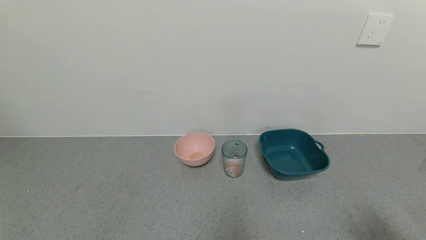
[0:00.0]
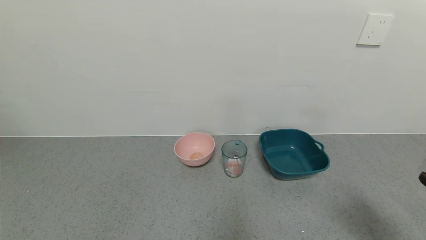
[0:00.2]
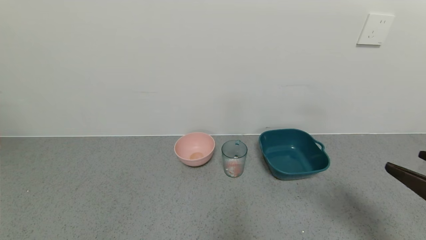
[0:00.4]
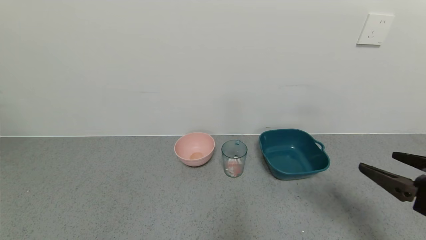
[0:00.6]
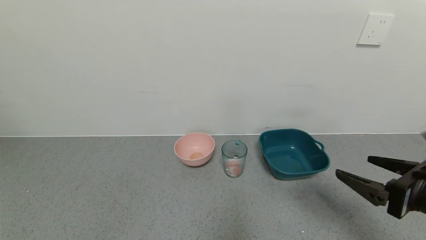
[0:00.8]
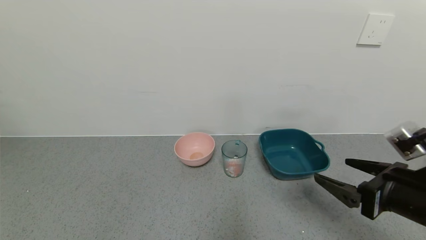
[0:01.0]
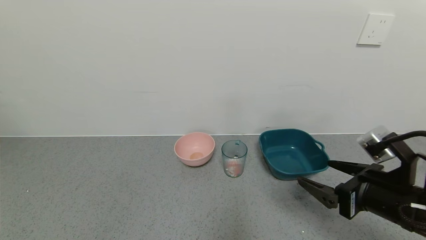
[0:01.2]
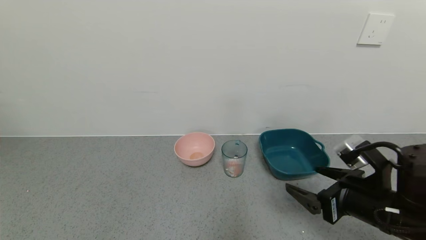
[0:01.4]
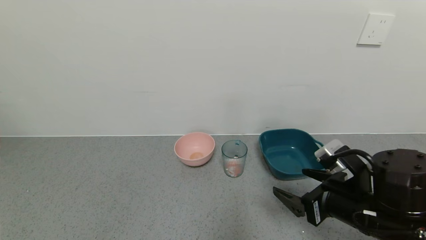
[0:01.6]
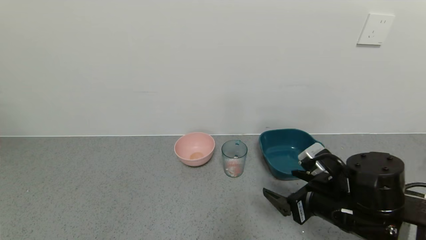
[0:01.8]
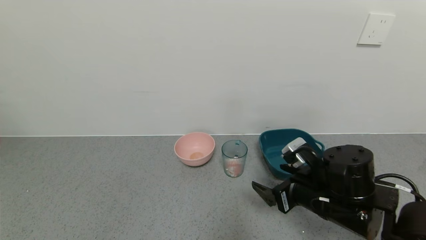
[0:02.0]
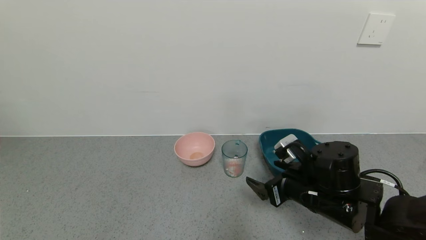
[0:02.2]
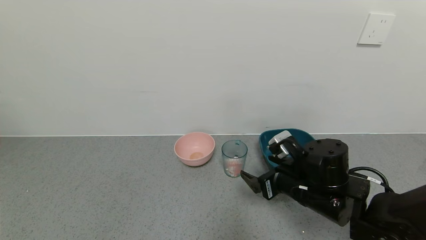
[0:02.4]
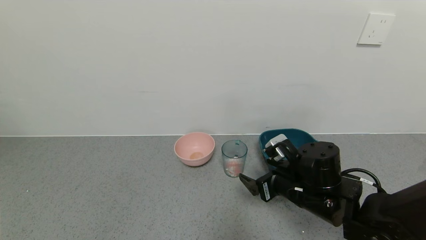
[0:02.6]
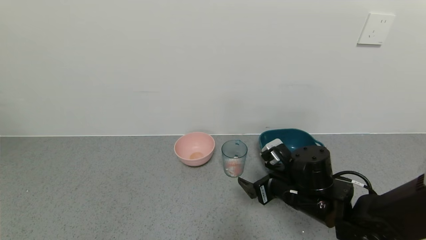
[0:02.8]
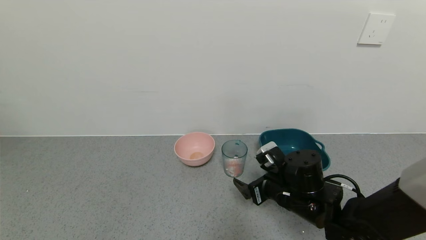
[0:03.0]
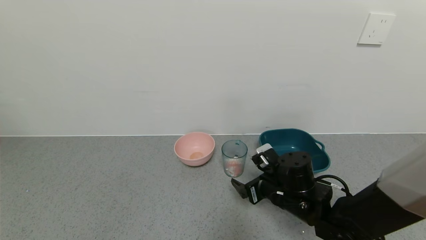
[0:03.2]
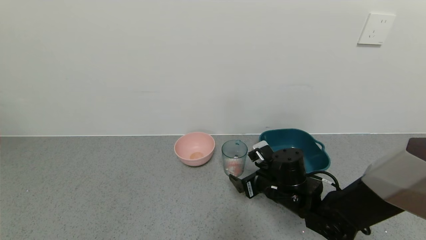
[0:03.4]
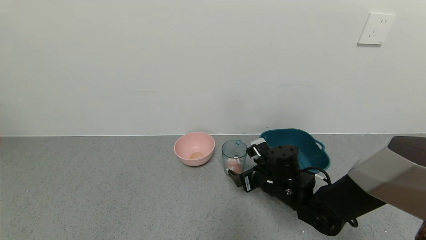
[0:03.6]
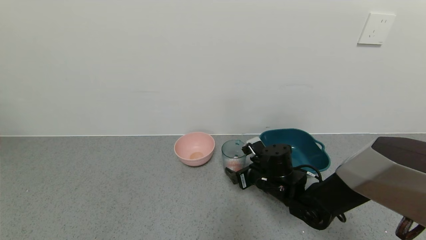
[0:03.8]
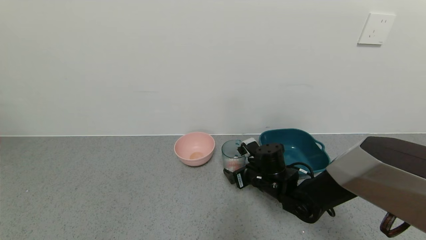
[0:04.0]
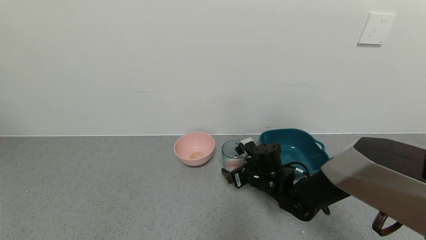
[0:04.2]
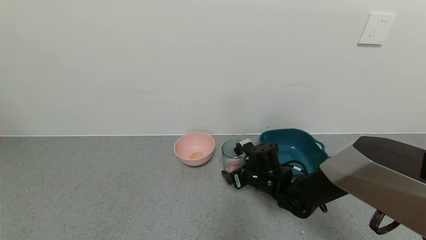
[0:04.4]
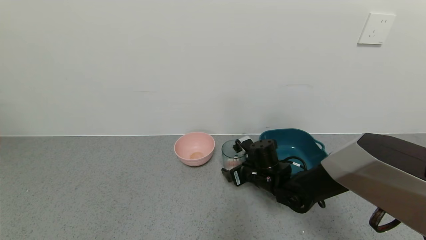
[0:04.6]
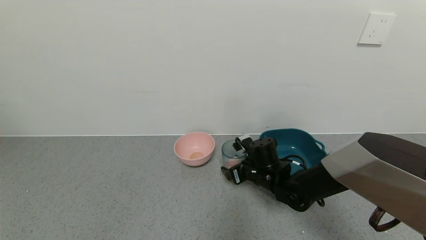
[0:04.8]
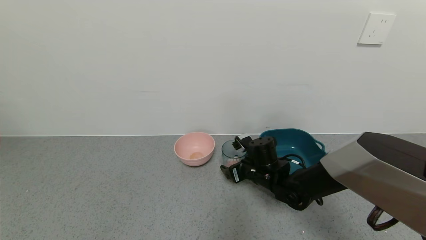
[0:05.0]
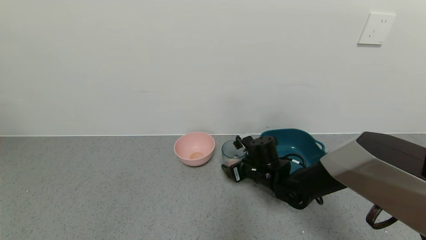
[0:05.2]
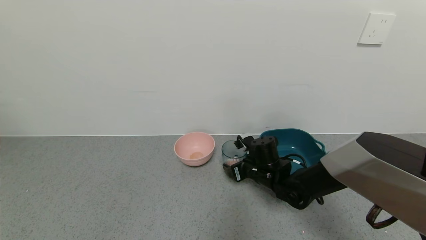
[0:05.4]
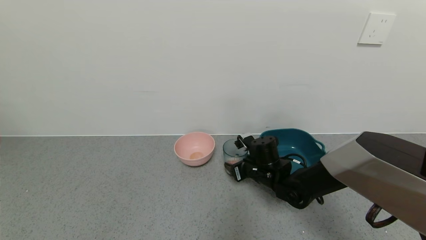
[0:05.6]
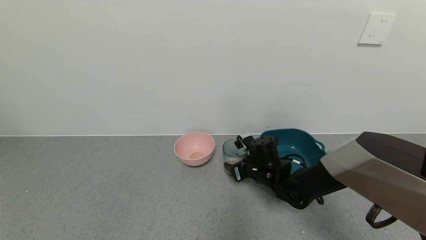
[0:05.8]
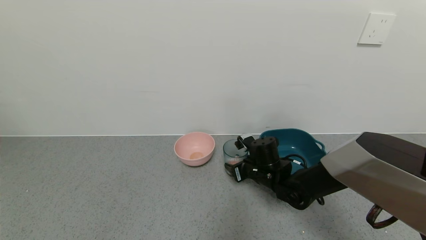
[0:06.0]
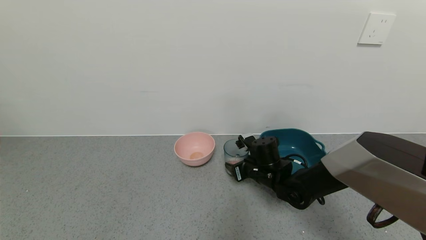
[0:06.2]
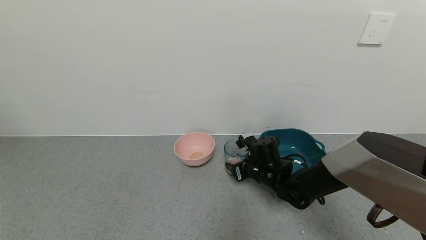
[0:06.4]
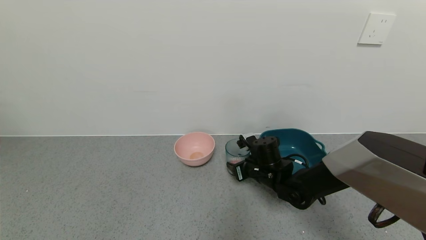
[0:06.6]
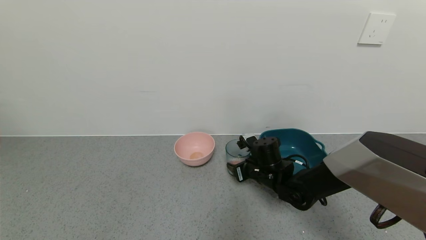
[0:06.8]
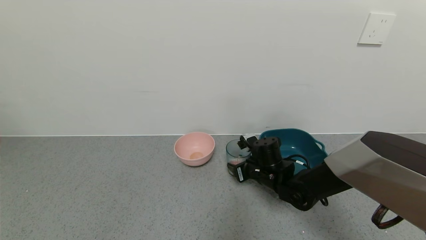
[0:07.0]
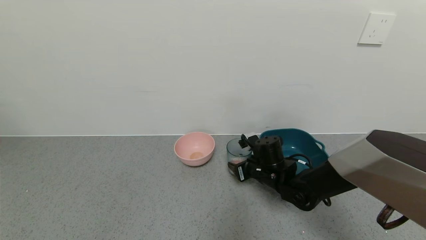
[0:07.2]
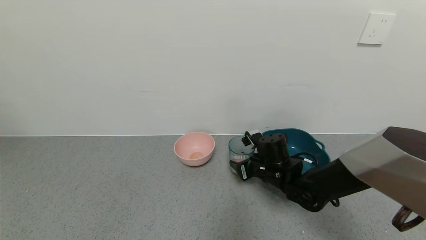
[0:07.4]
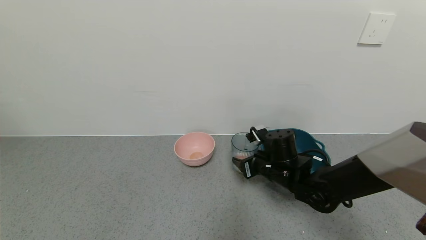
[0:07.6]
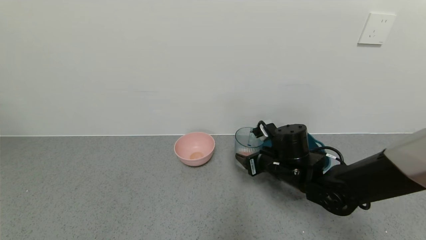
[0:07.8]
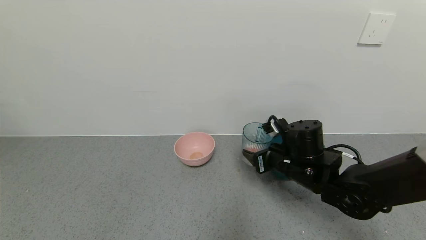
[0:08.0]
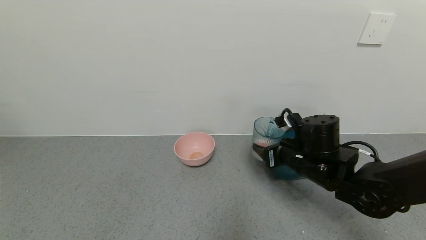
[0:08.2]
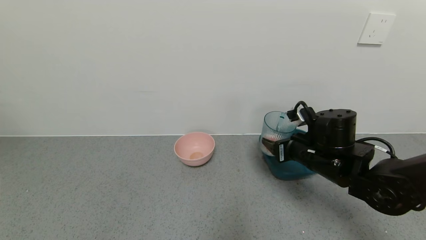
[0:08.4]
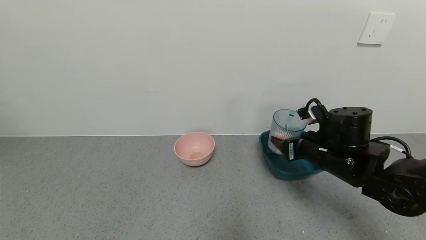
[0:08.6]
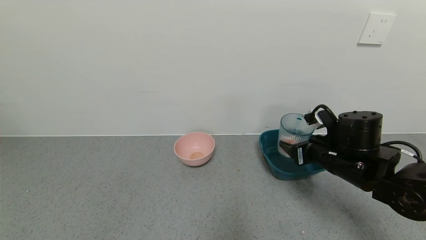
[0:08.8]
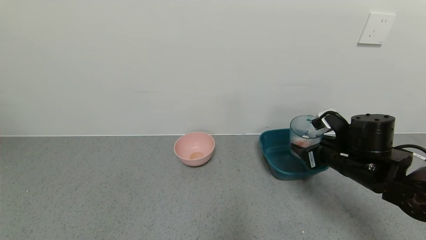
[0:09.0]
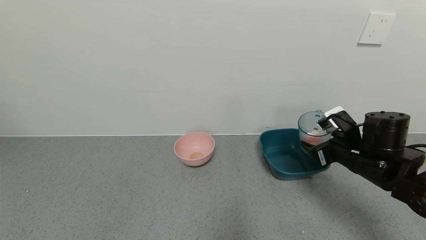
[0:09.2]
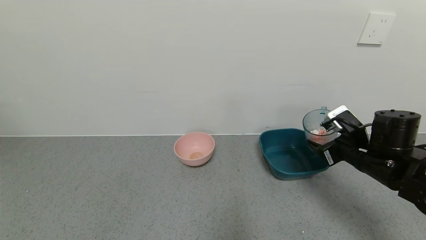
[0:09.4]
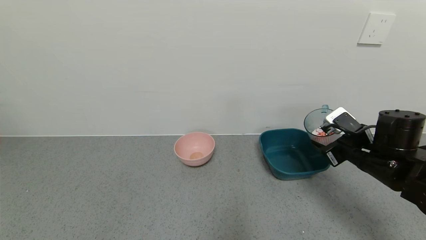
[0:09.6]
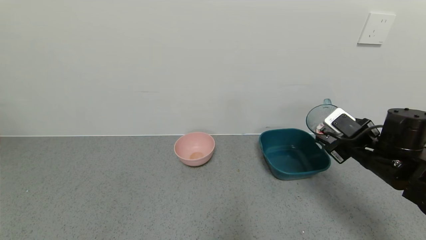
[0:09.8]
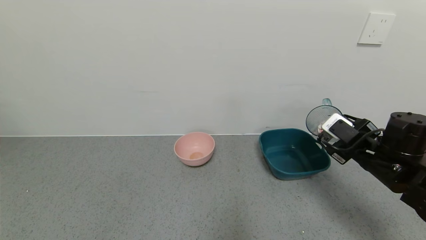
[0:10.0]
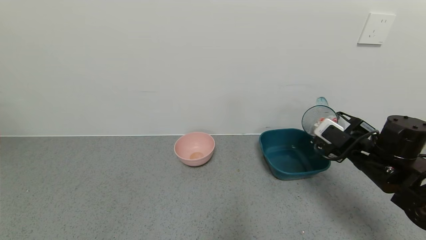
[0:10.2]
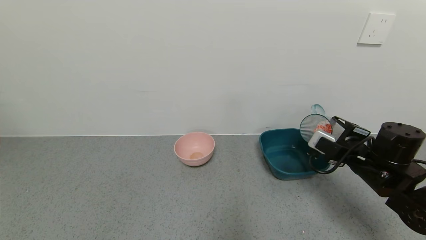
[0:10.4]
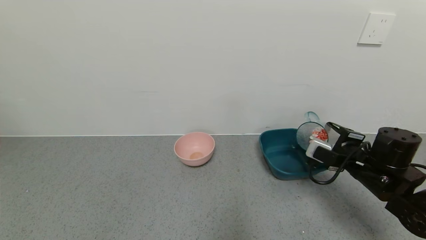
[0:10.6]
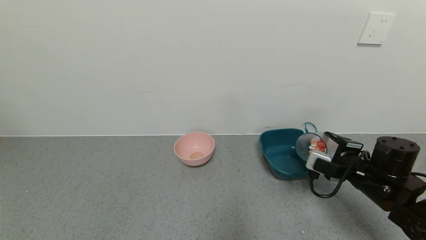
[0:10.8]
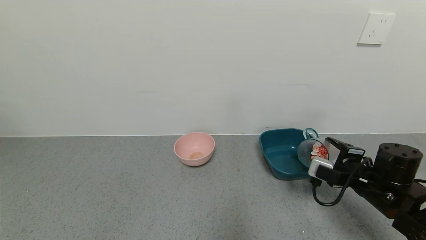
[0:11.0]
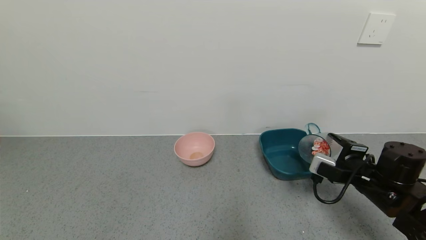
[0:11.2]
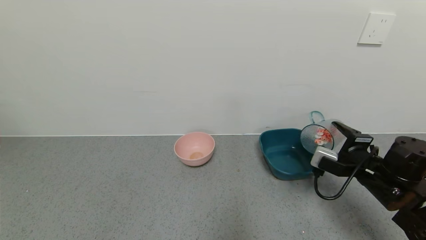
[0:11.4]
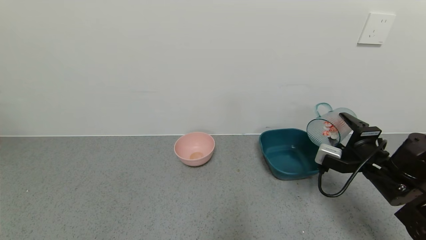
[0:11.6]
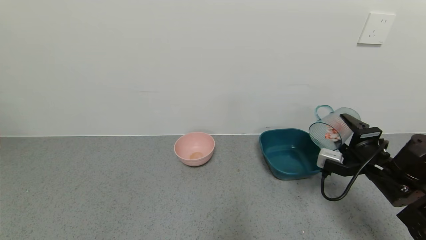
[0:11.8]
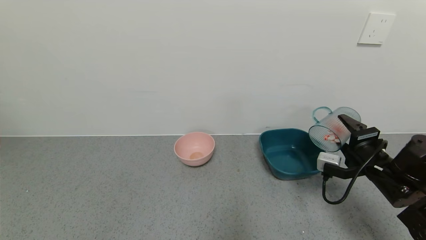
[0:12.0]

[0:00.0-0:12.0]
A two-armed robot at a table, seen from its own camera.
Task of the whole recording: use a gripper to pick up the cup and pour the solid into a bowl or tray.
Step, 0:00.0 to 0:05.8: Grasp the glass of shrimp with the right gripper.
0:00.0 to 0:01.6: The right gripper is displaced forward, to the left and downward by approximately 20 cm.
0:01.6 to 0:03.0: The right gripper travels forward, to the left and downward by about 15 cm.
0:03.0 to 0:04.4: The right gripper goes about 10 cm forward.
0:04.4 to 0:06.0: The right gripper closes up.
0:06.0 to 0:07.6: The right gripper changes place by about 5 cm.
0:07.6 to 0:09.0: The right gripper moves to the right and upward, approximately 15 cm.

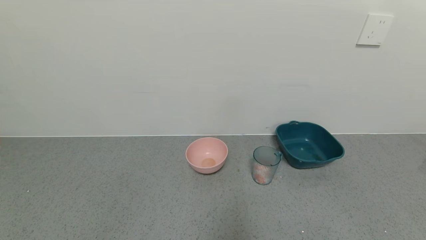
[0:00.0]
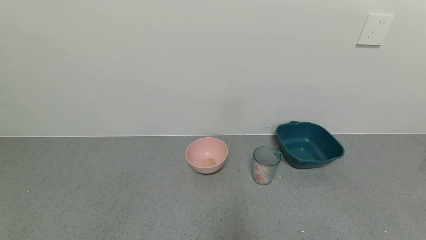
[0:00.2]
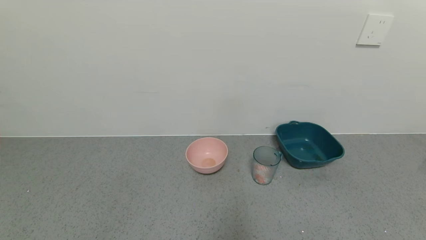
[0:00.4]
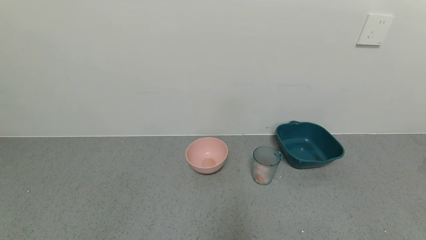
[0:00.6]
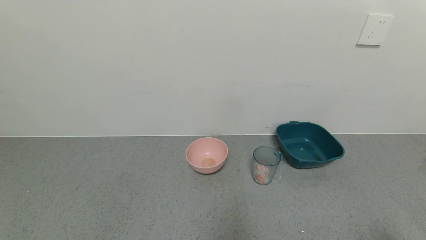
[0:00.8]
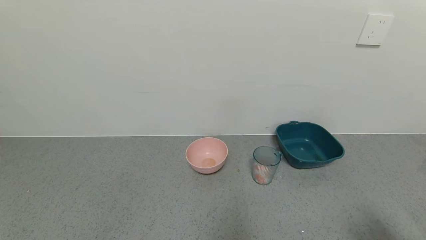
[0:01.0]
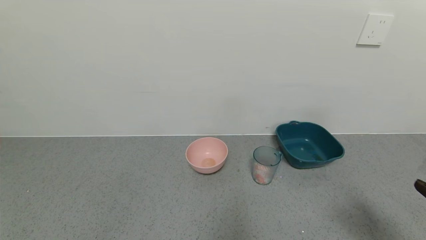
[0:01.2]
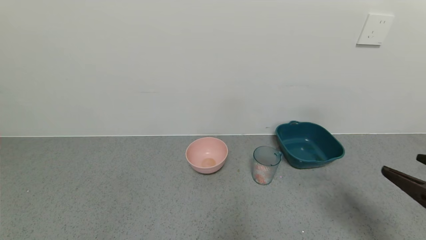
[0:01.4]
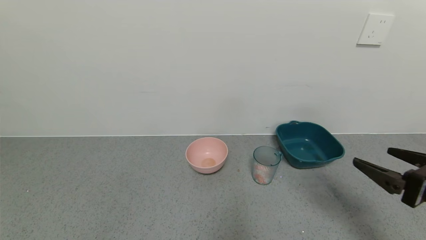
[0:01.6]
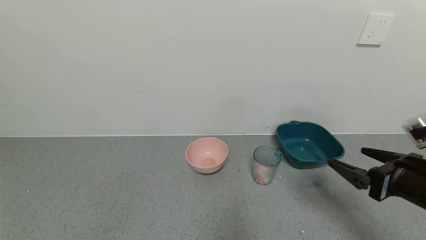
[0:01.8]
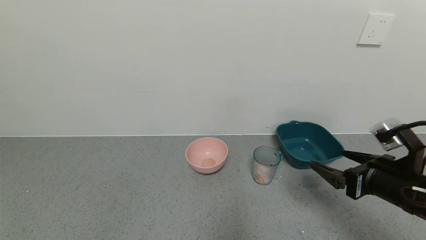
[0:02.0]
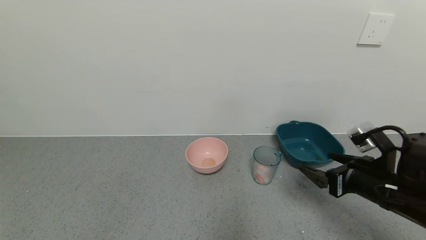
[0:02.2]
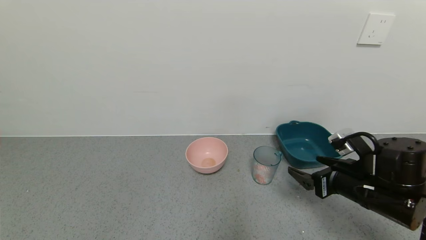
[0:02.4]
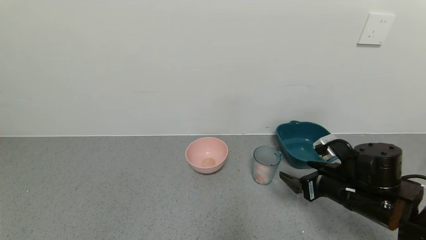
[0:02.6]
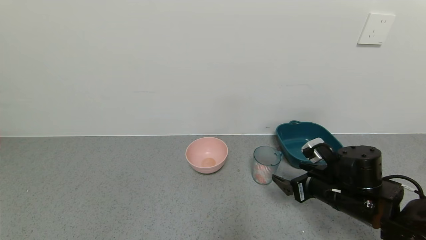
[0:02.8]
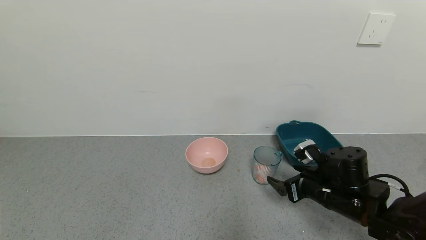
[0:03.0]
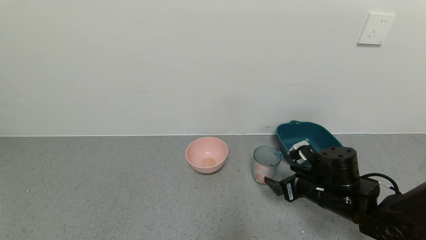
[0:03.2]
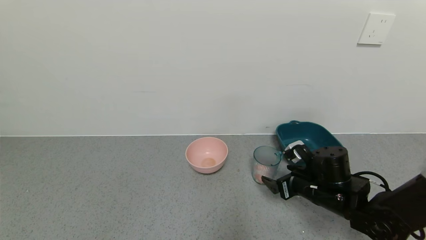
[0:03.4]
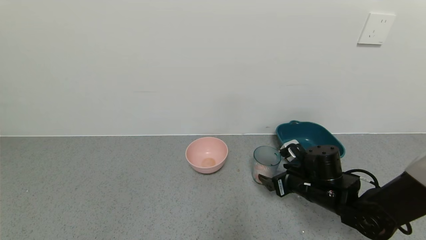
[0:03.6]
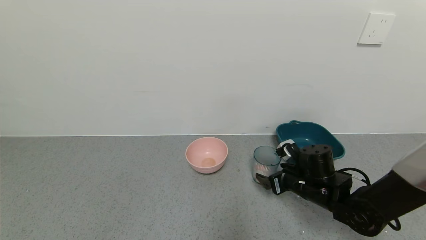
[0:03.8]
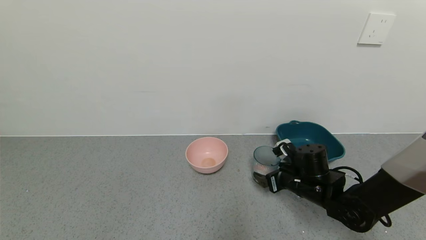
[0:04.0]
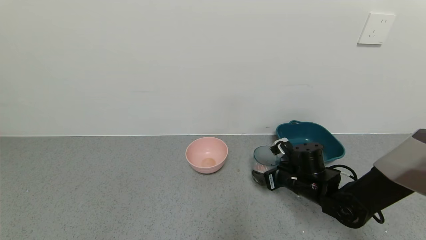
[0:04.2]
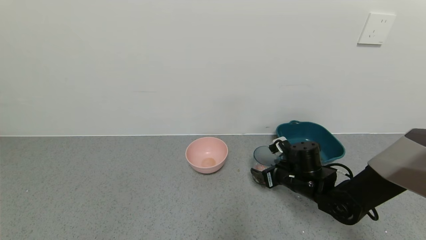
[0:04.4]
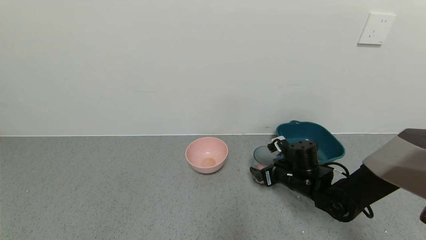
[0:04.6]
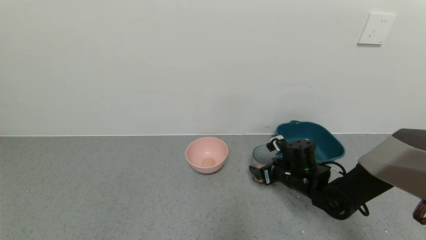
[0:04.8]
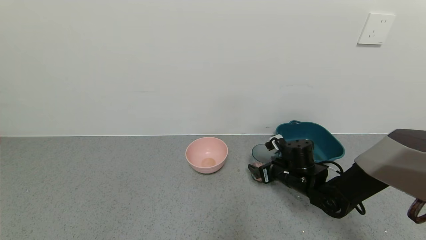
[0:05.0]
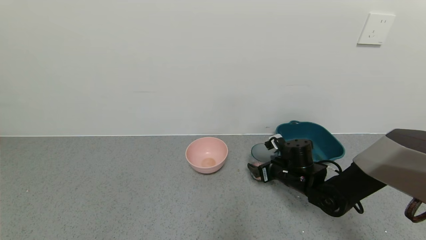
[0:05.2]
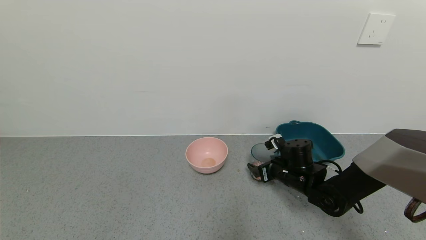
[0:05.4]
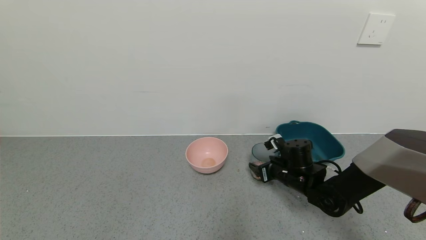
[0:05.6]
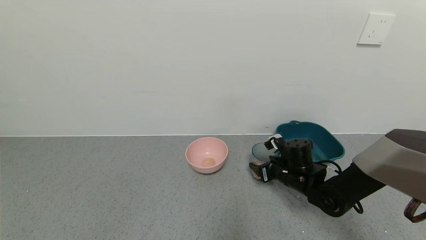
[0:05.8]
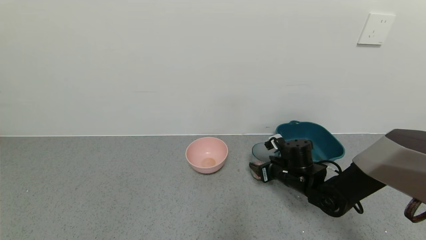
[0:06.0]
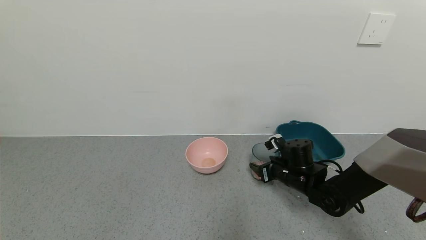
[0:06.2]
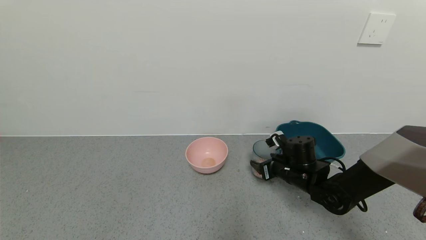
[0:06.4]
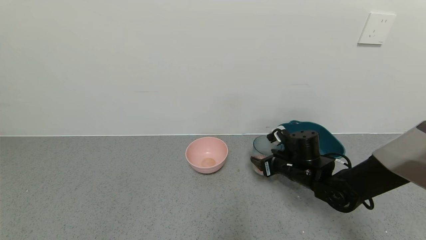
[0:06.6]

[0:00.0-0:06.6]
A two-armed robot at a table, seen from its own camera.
Task of the whole recording: use a gripper to pick up the cup and pour the solid into a bowl or tray.
Step, 0:00.0 to 0:05.4: Grasp the glass of shrimp with the right gripper.
0:00.0 to 0:01.6: The right gripper moves forward and upward, some 20 cm.
0:01.6 to 0:03.2: The right gripper heads forward, downward and to the left, covering about 20 cm.
0:03.2 to 0:05.0: The right gripper goes some 10 cm forward.
0:05.0 to 0:06.6: The right gripper closes its fingers.
